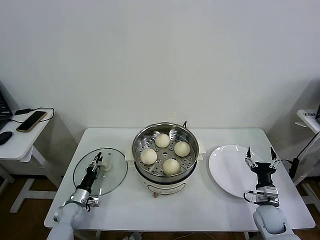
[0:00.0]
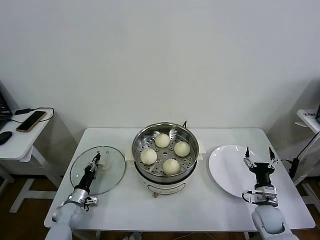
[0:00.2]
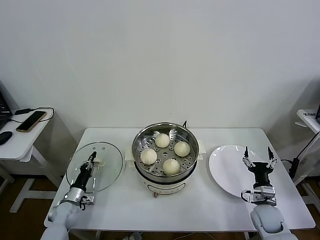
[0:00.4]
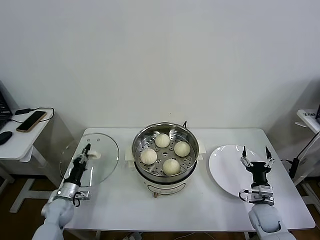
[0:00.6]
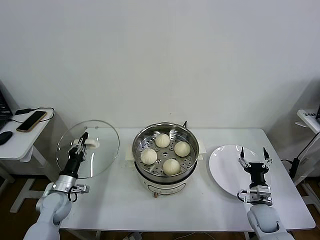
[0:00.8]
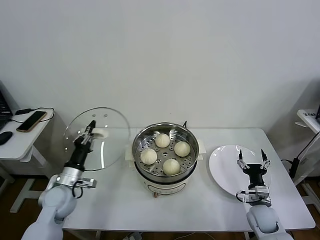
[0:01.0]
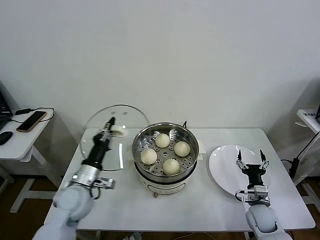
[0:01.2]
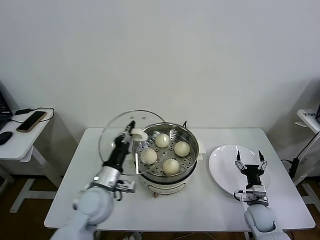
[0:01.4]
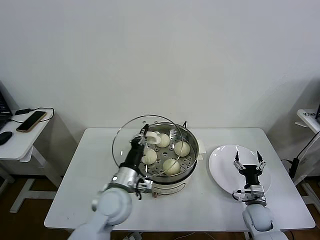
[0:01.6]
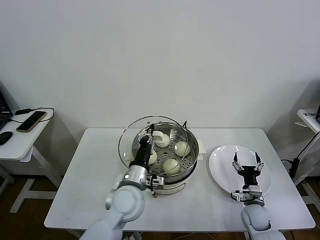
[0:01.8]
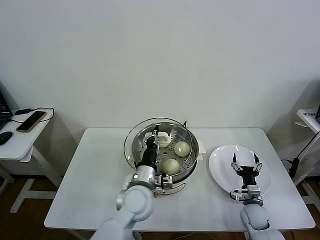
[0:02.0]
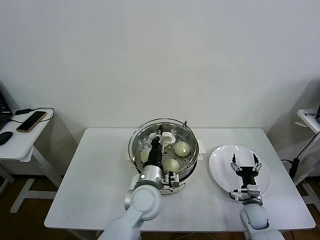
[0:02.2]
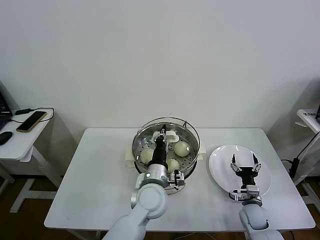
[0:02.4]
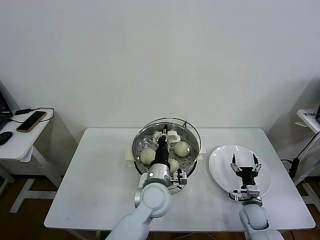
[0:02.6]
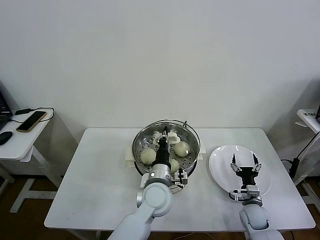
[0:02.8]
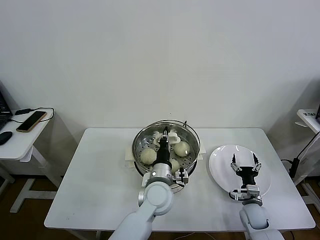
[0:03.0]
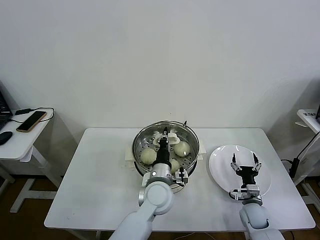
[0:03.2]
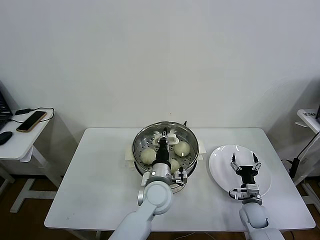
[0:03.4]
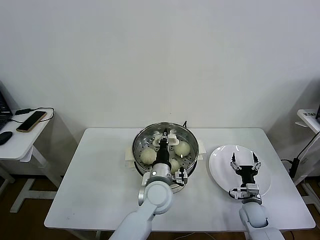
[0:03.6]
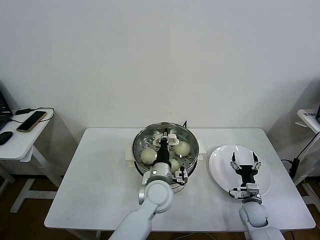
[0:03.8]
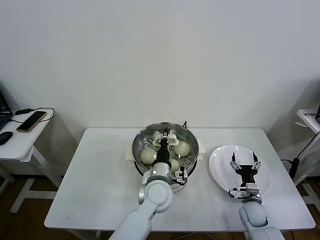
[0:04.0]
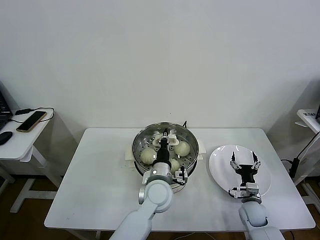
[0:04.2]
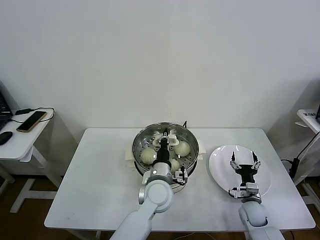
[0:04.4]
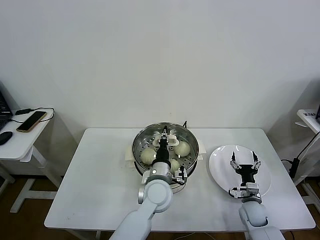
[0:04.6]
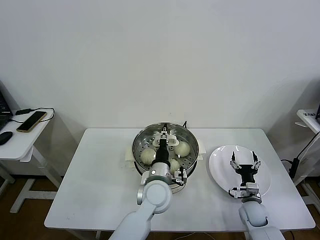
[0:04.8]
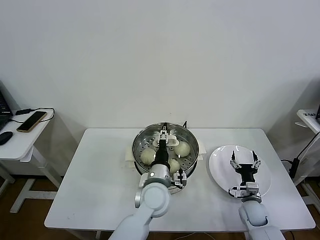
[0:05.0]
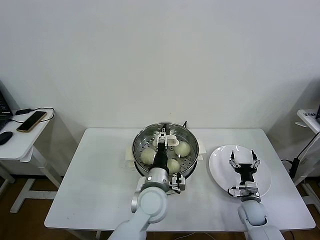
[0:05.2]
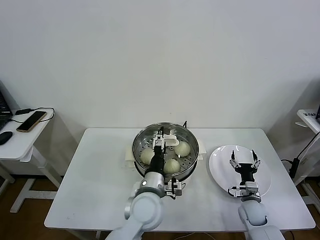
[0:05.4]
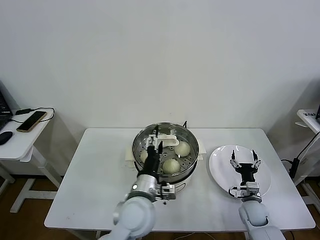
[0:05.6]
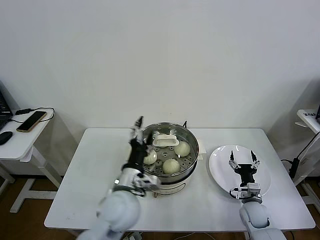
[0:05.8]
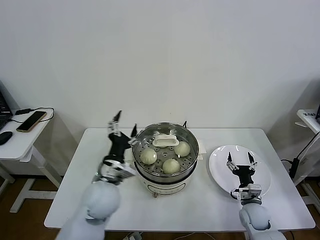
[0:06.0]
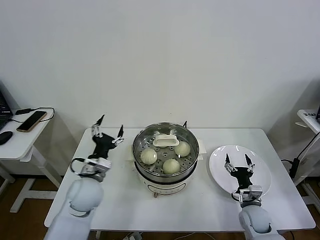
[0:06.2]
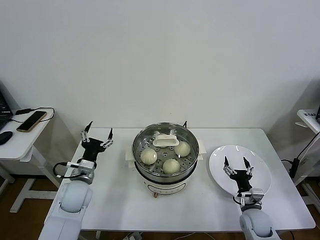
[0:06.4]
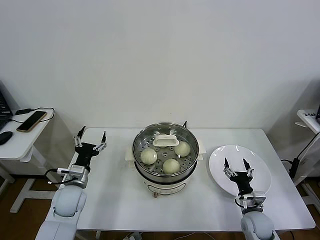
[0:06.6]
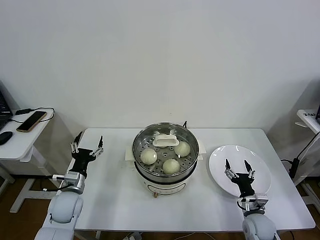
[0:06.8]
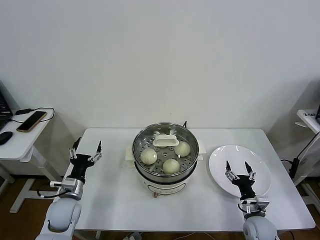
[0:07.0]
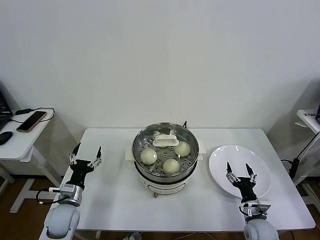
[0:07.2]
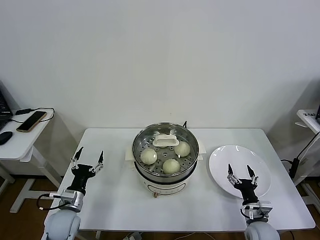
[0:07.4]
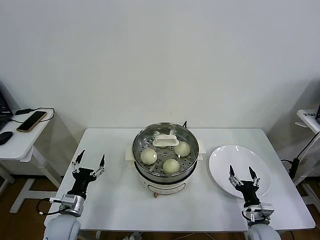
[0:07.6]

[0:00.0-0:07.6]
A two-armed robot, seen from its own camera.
Task of the whole recording: take steamed baozi put them in steamer then cover it.
Step, 0:00.6 to 0:04.8: Place the pot lid on the steamer with left gripper.
0:00.0 to 0:01.6: The left gripper heads upward and to the right, covering approximately 35 cm, and closes up.
0:01.6 to 0:03.0: The left gripper goes roughly 15 cm to the right.
0:03.0 to 0:04.6: The grippers move only a little.
0:04.6 to 0:06.0: The left gripper moves to the left and upward, approximately 15 cm, and opens its fingers.
0:06.0 to 0:07.6: The right gripper is displaced backward by some 5 cm, while the left gripper goes approximately 20 cm to the left and downward.
